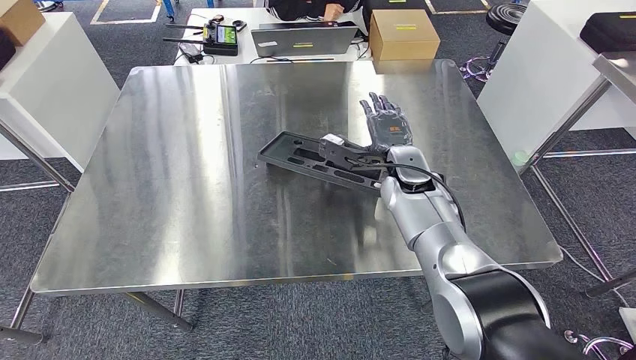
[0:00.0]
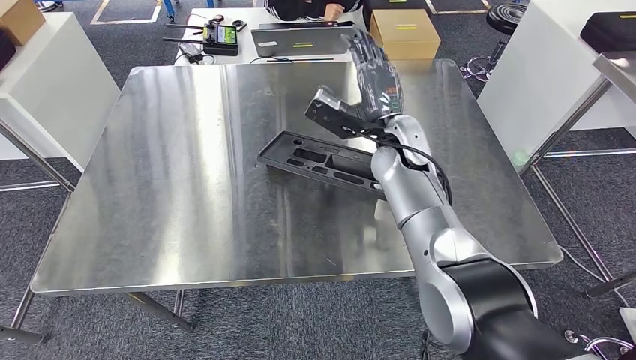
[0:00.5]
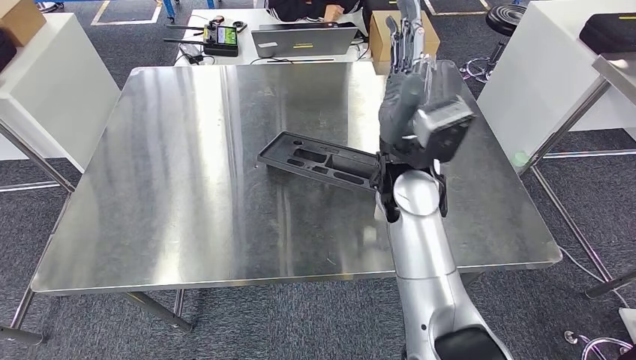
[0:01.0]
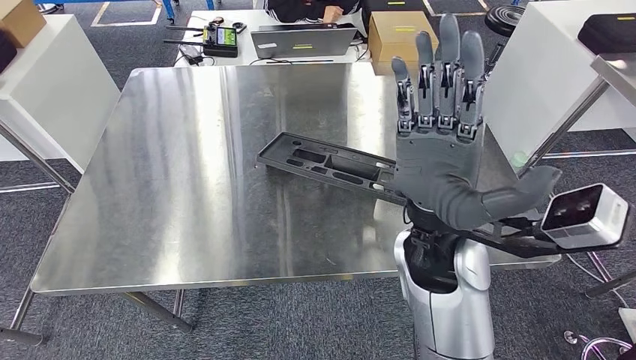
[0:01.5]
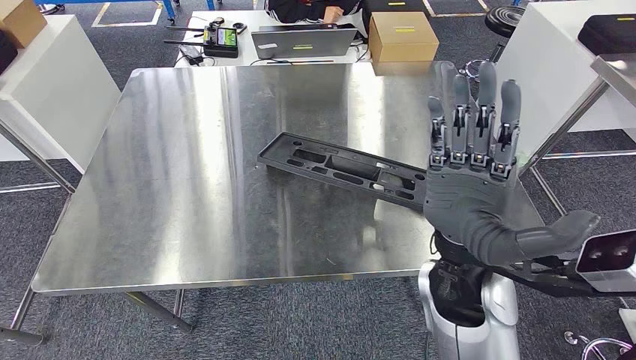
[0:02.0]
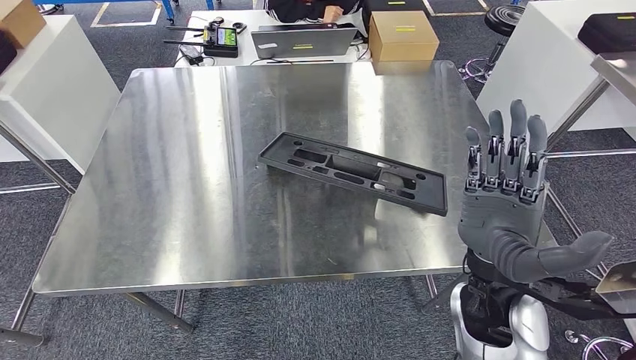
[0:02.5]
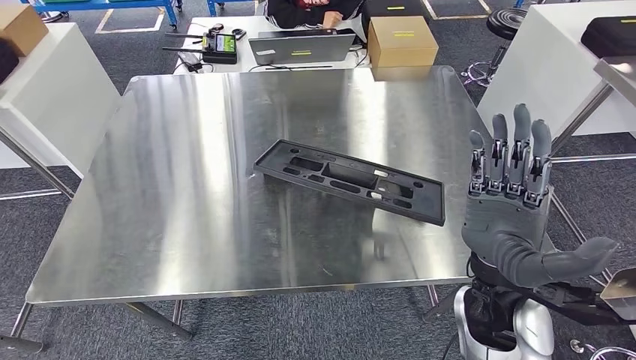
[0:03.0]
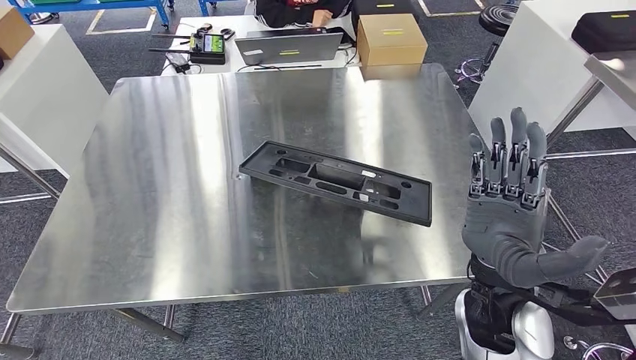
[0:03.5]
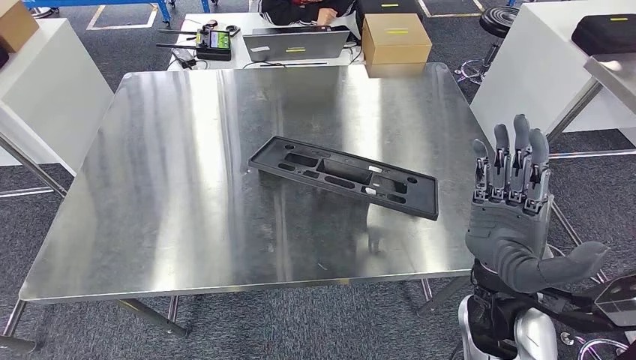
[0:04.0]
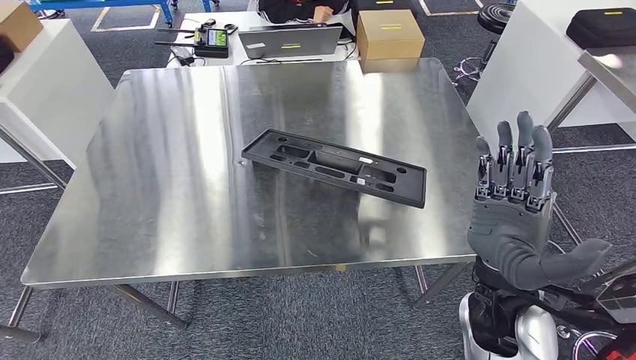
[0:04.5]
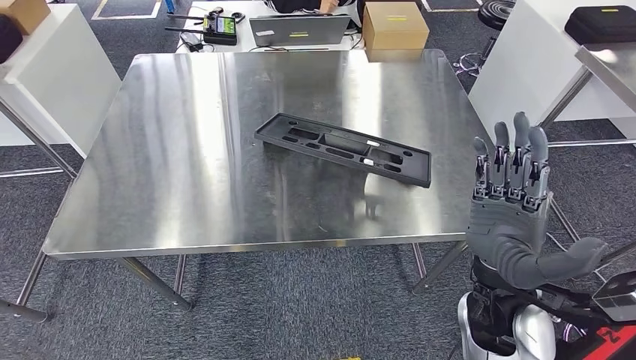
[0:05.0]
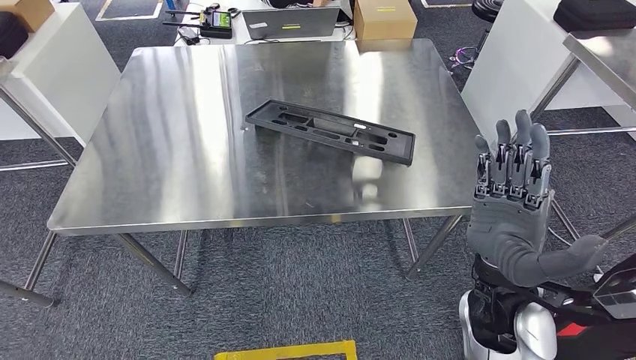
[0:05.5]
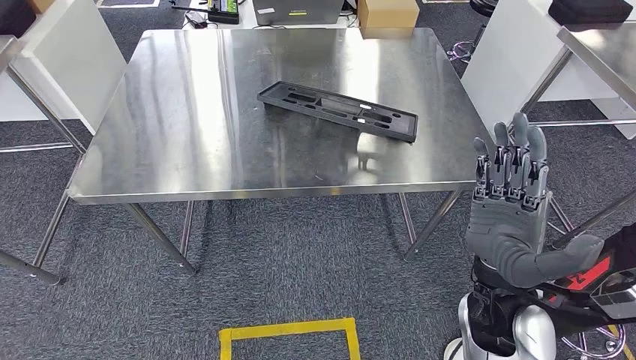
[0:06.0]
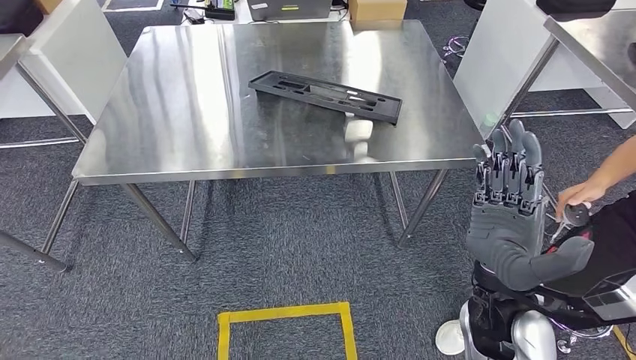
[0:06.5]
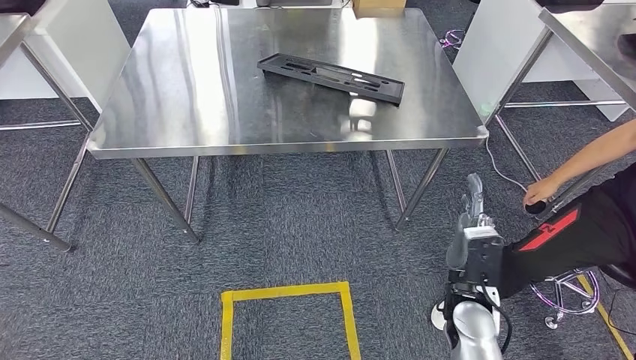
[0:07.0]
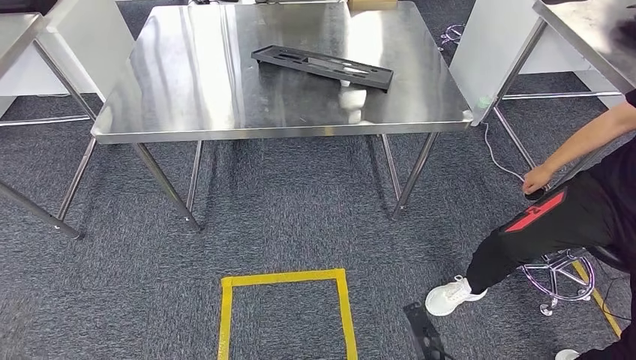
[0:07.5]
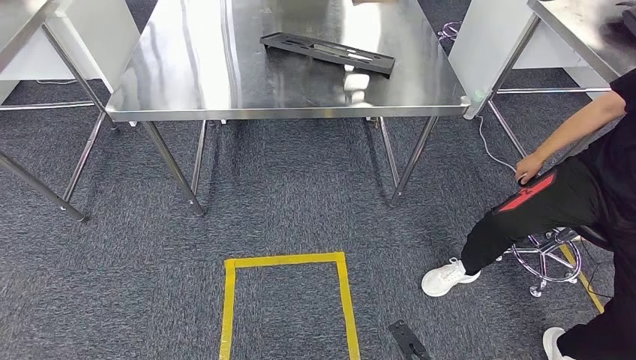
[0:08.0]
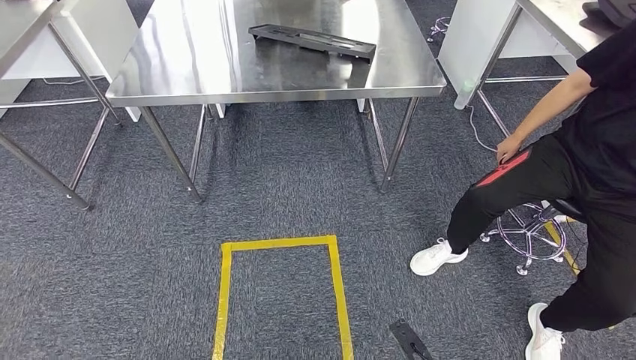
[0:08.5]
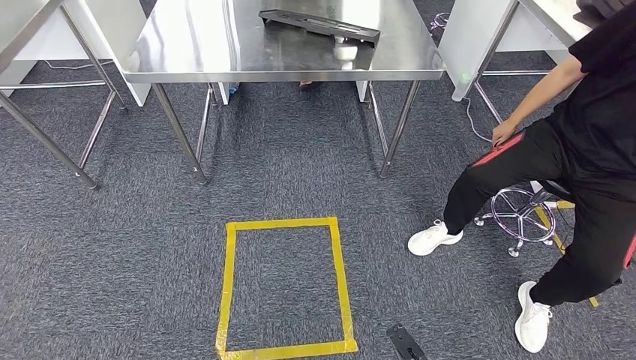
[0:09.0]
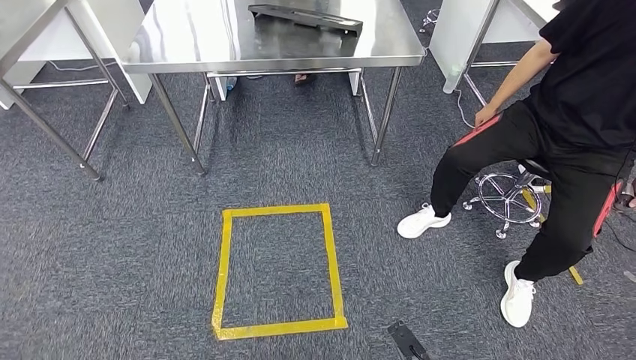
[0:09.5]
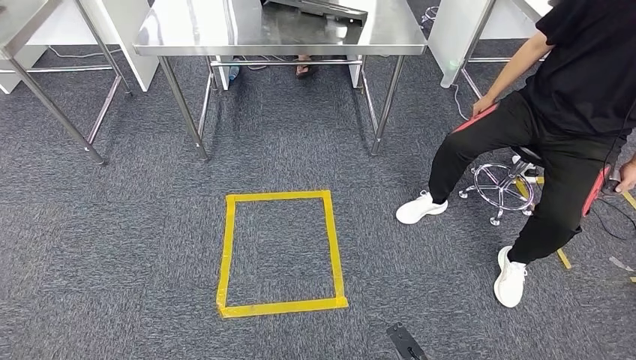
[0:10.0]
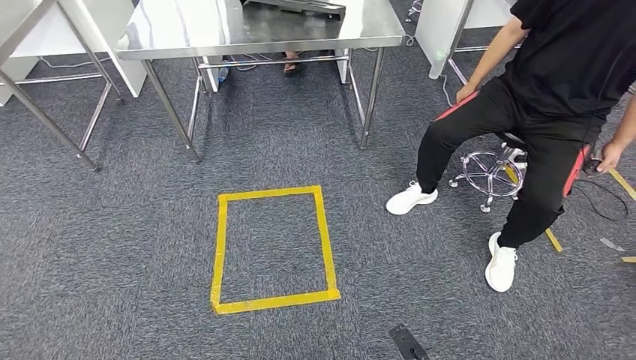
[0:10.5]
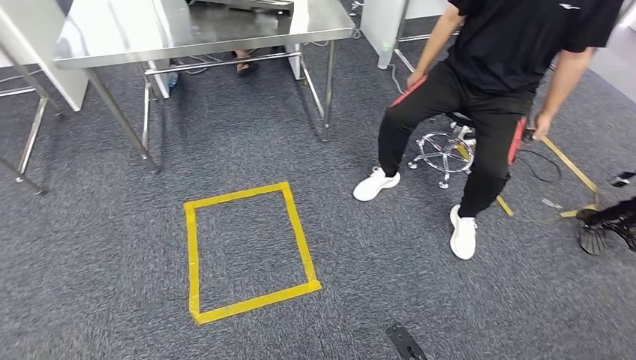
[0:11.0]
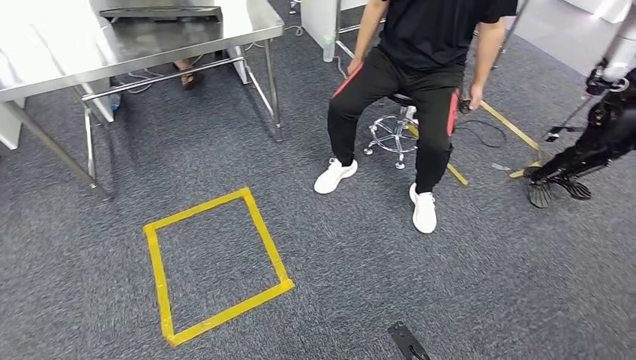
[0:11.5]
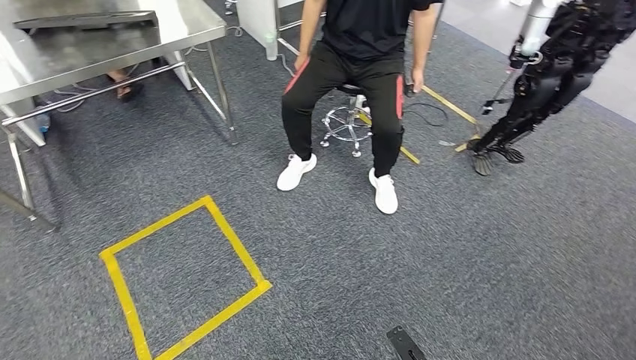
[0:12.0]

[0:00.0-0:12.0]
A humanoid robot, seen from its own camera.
Step, 0:00.0 to 0:05.0: Insert the large material into the corresponding slot on the workbench.
0:00.0 to 0:02.0: The right hand heads backward and upward, covering approximately 15 cm.

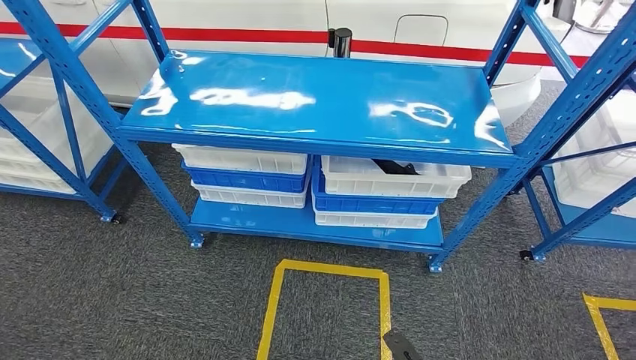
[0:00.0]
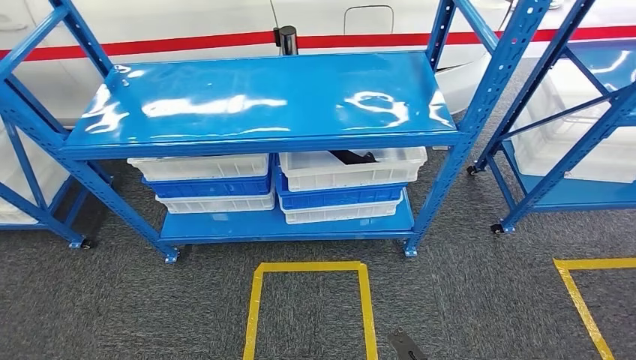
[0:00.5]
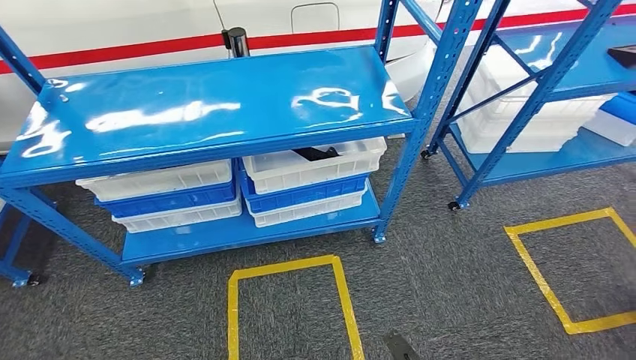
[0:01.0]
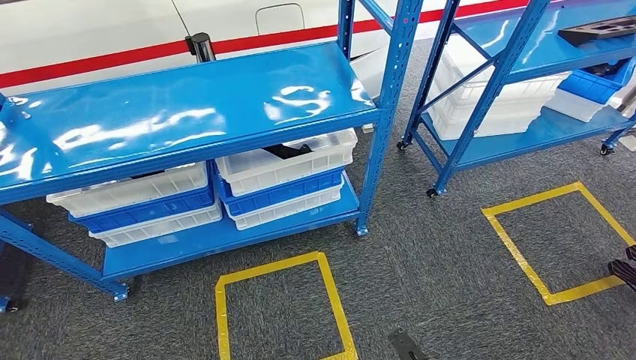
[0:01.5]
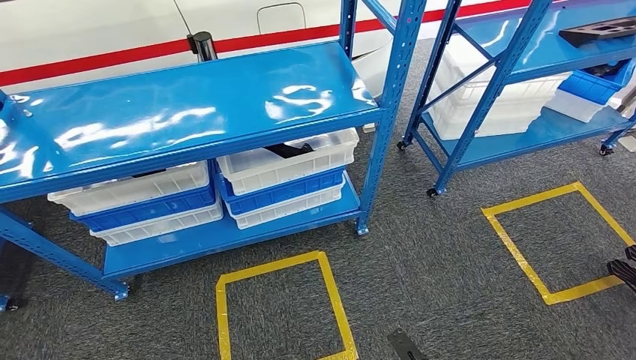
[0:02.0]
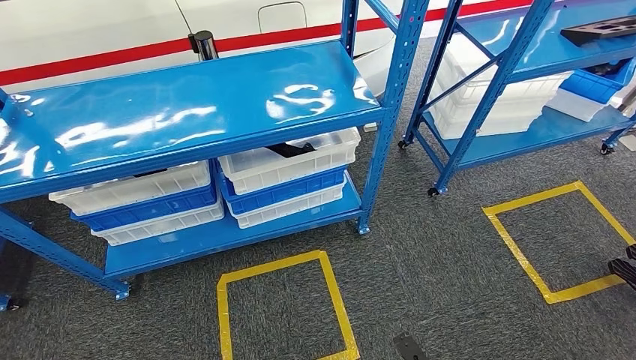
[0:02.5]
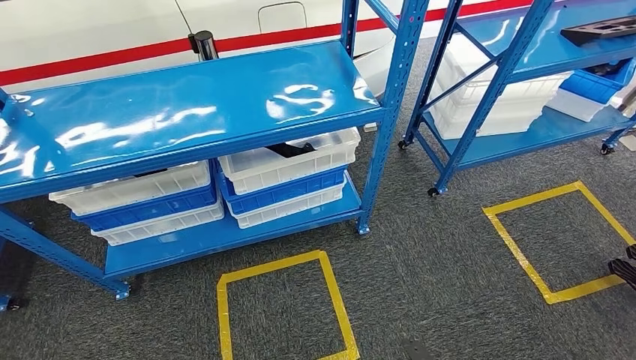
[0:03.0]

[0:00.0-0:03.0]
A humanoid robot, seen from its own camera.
Step, 0:00.0 to 0:02.5: Return to the initial position at the shelf.
0:01.5 to 0:03.0: There are only small adjustments of the hands.
